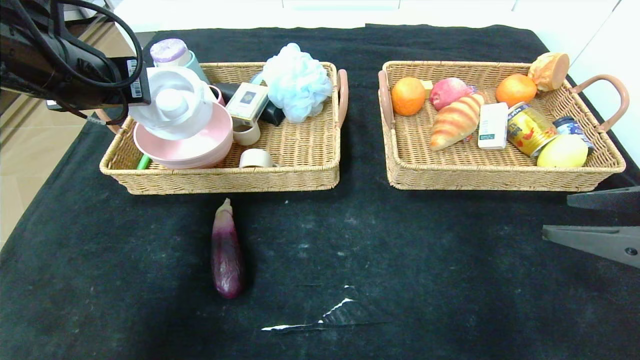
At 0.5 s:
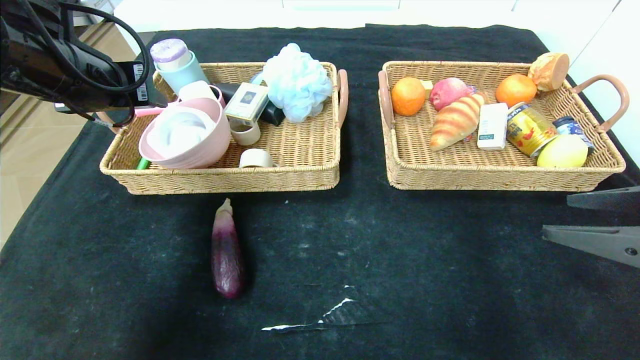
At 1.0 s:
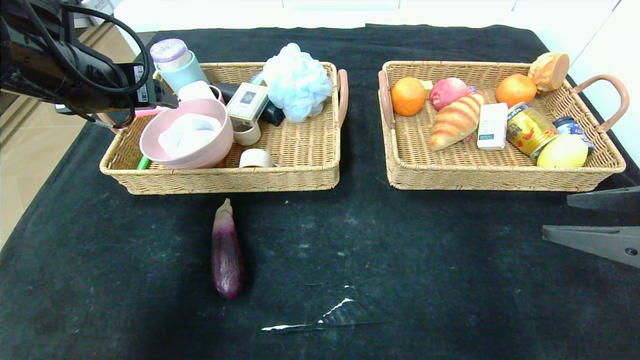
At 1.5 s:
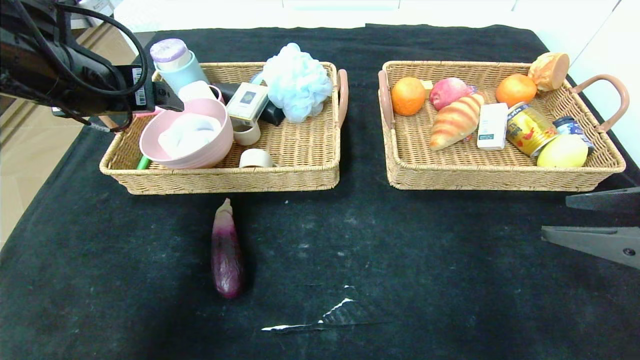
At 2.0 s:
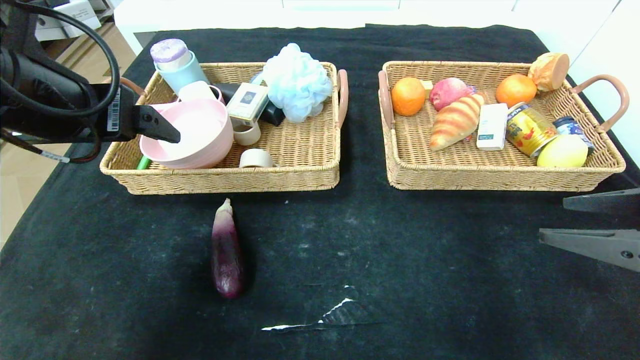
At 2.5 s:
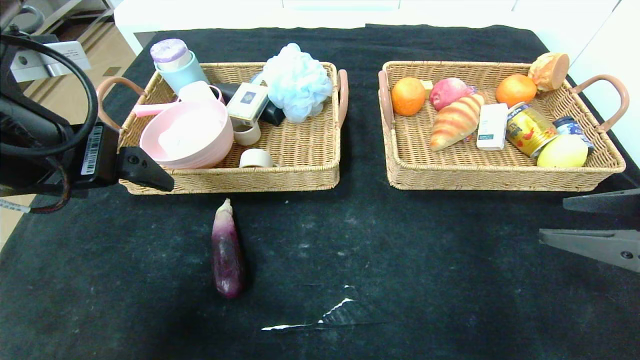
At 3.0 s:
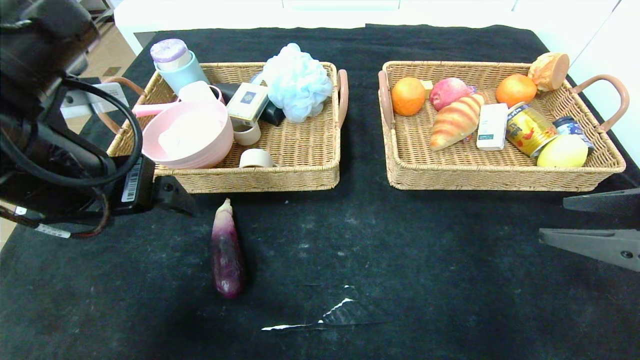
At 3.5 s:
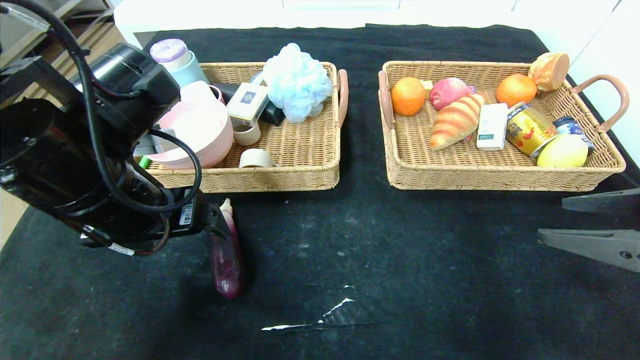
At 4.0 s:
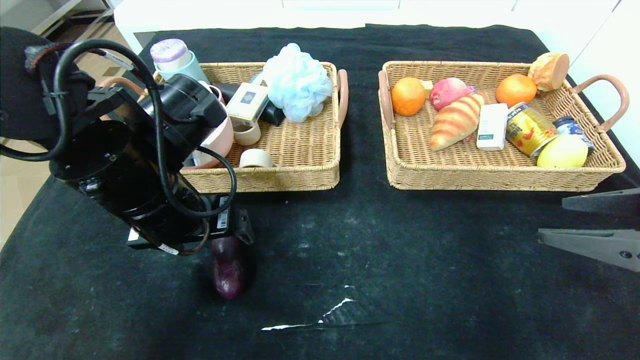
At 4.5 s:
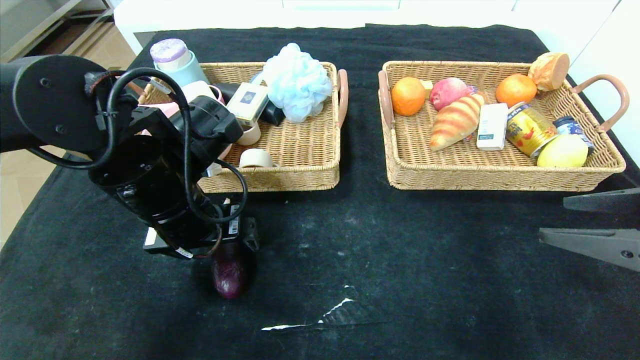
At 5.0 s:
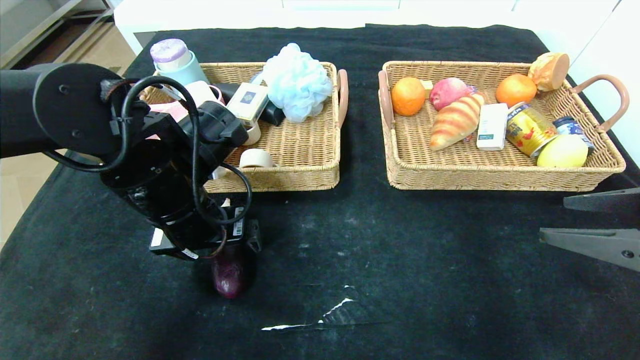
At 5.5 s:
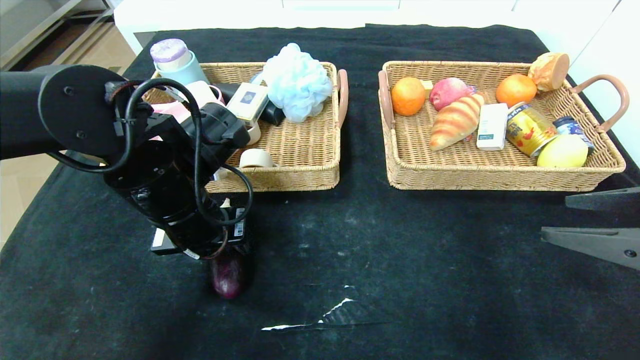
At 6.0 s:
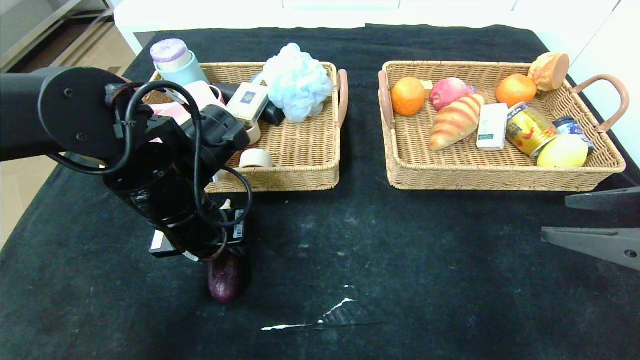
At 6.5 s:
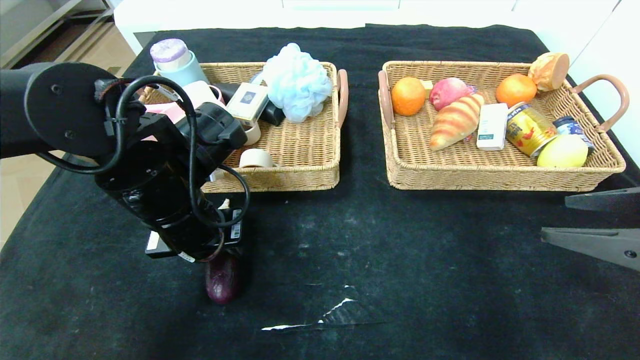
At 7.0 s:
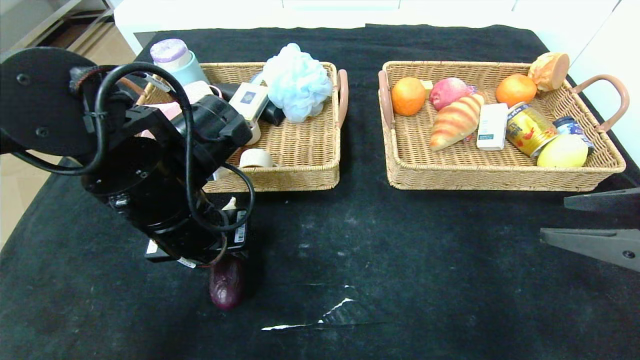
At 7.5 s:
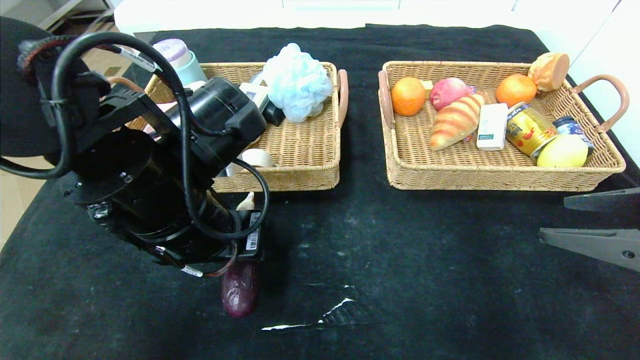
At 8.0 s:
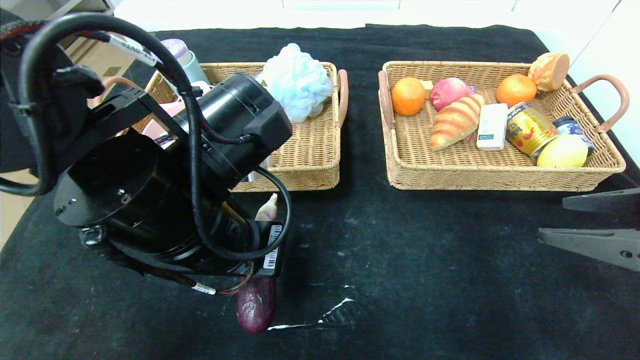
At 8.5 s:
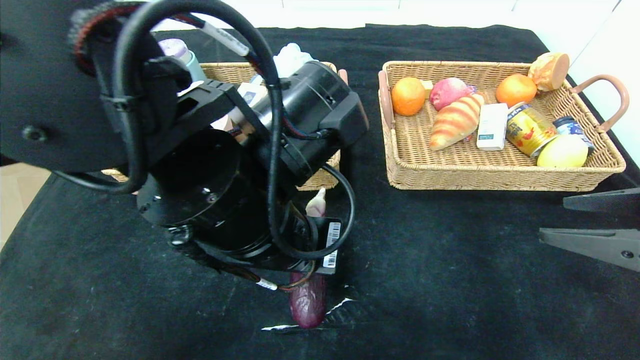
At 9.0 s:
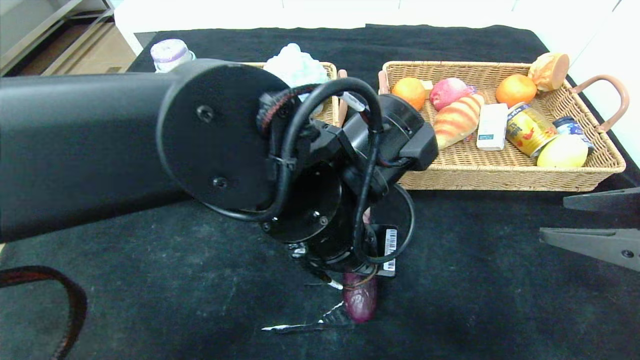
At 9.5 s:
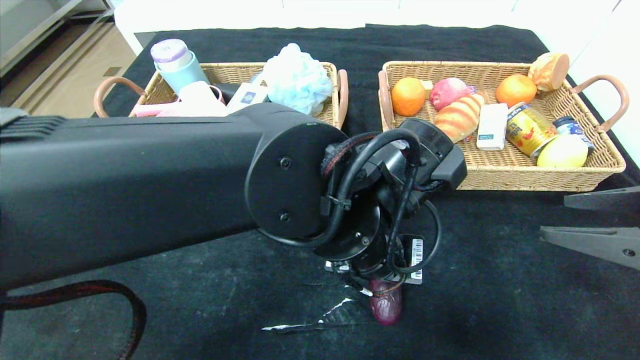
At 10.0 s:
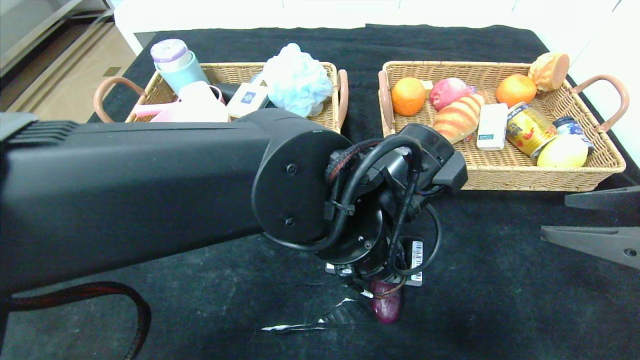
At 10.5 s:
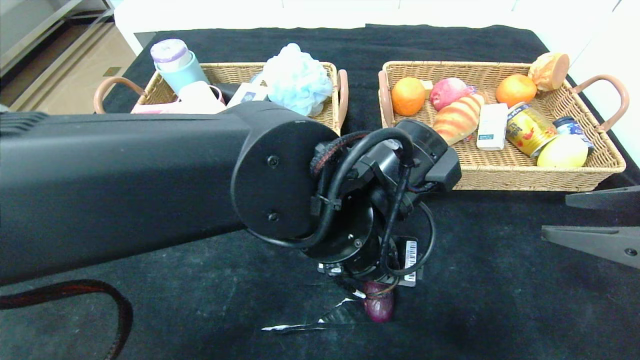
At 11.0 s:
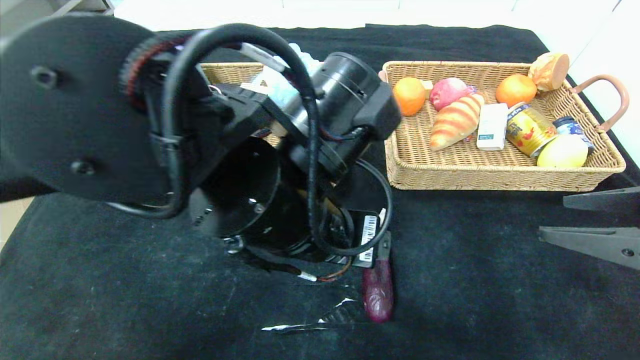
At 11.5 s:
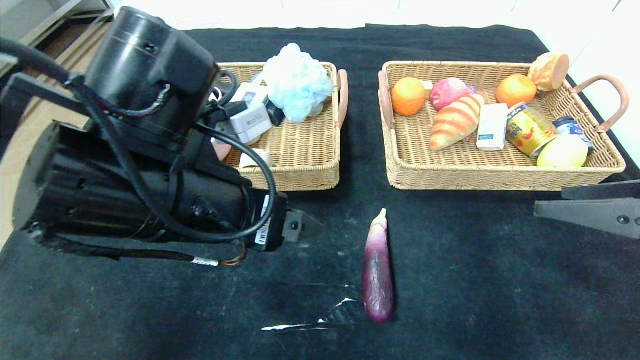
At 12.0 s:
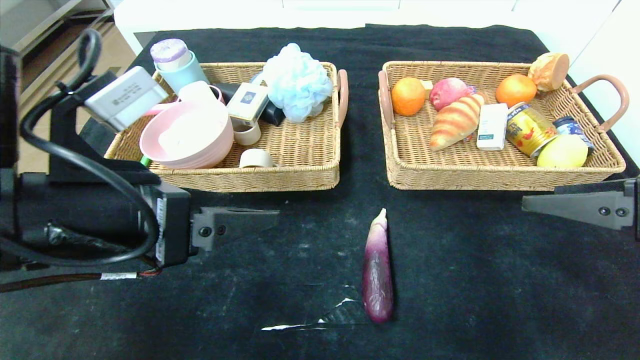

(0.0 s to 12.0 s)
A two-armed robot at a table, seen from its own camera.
Step, 0.0 s - 3.0 s: Pick up the tape and put it in the left basket.
Step, 3.5 s - 11.0 s: Place the eggplant in the center of the table.
0.0 s - 2.0 s: The left gripper goes some 5 cm backward, and opens up.
2.0 s - 4.0 s: The left gripper goes some 10 cm downward and to the right.
4.0 s - 6.0 s: The left gripper closes its fingers.
6.0 s - 8.0 s: The left gripper travels backward and to the right by approximately 10 cm.
8.0 s - 10.0 s: The left gripper shifts approximately 15 cm to the right.
10.0 s - 12.0 s: The left gripper is displaced to the left by some 20 cm.

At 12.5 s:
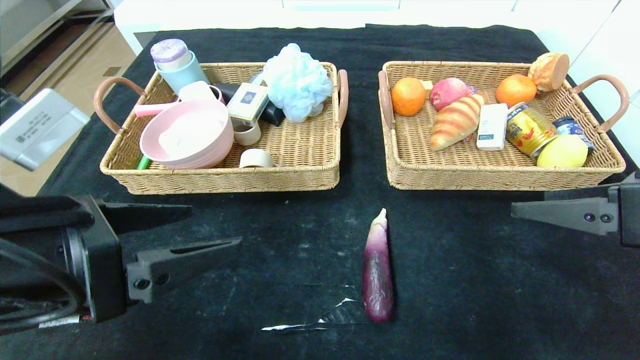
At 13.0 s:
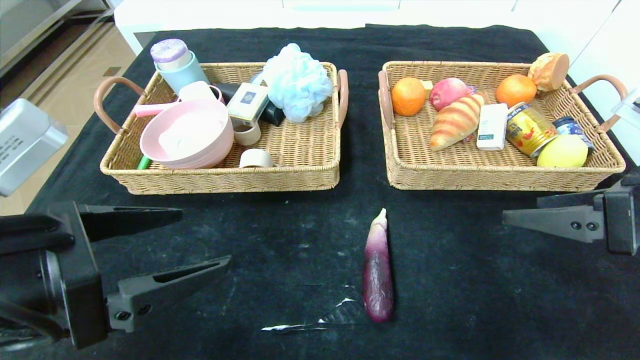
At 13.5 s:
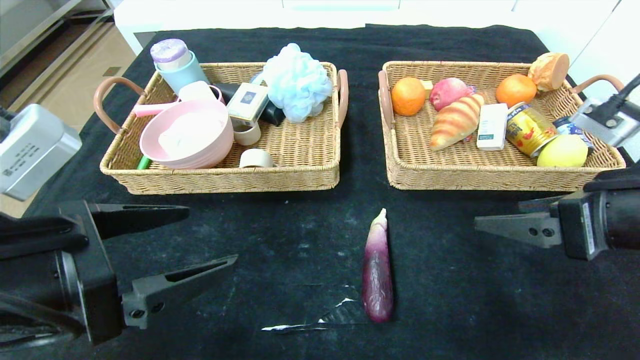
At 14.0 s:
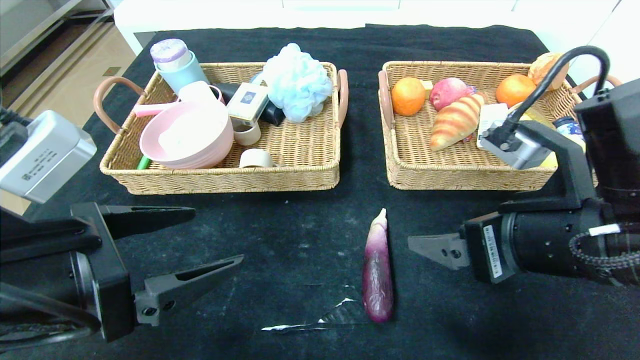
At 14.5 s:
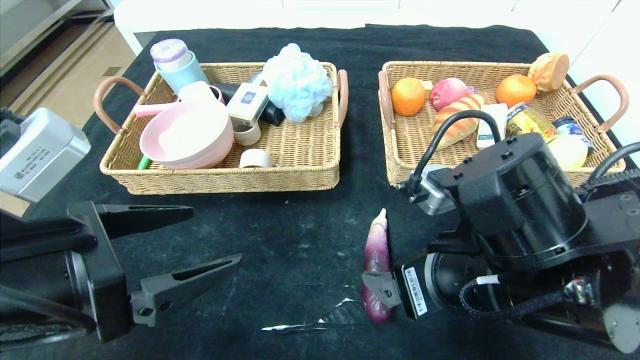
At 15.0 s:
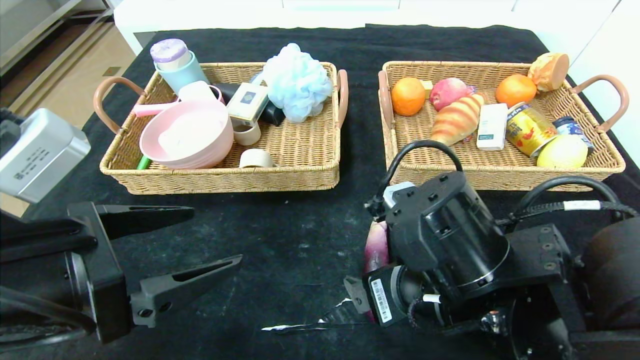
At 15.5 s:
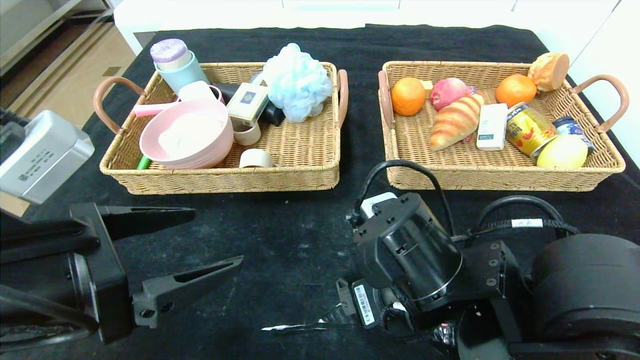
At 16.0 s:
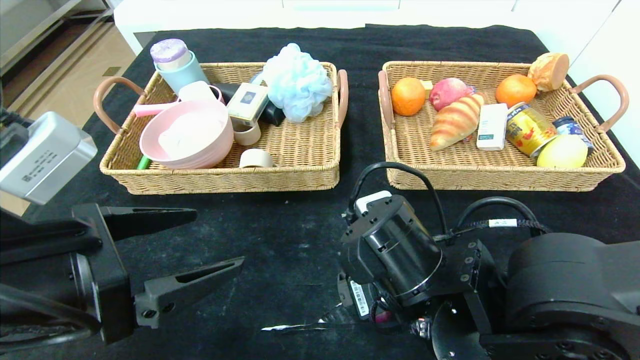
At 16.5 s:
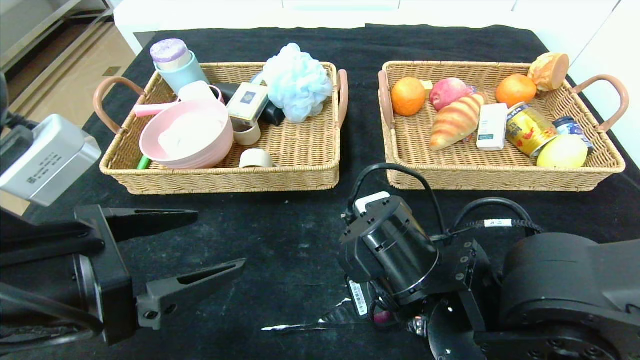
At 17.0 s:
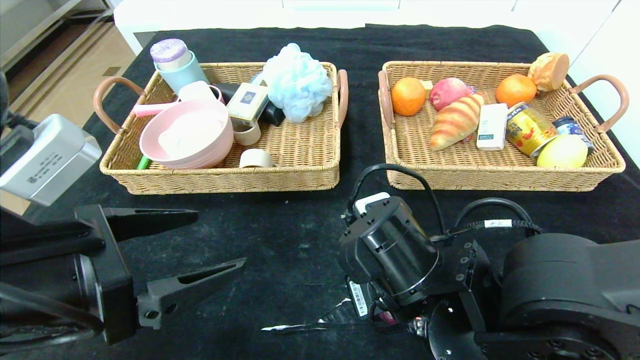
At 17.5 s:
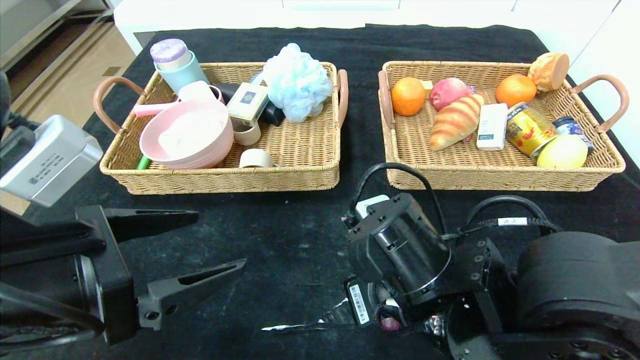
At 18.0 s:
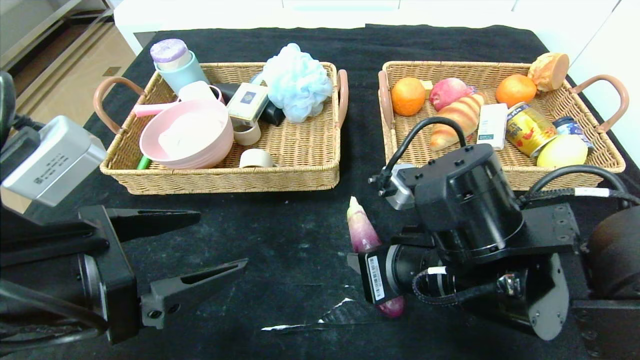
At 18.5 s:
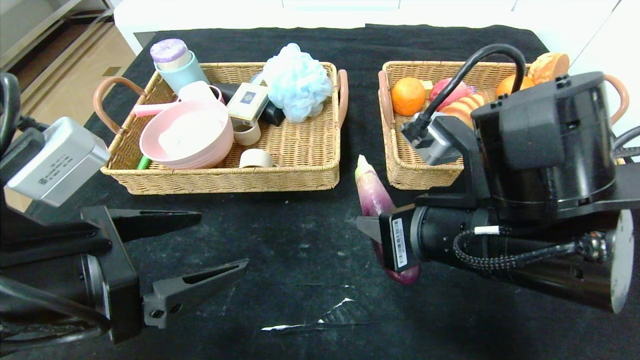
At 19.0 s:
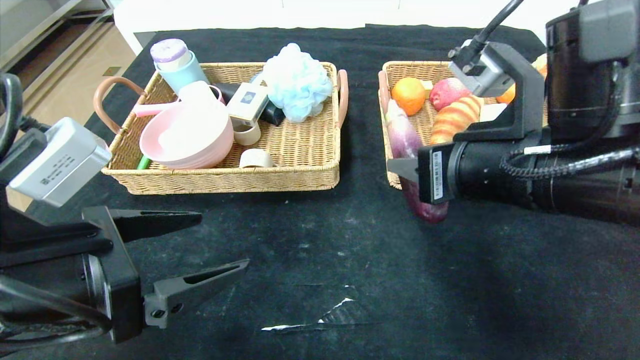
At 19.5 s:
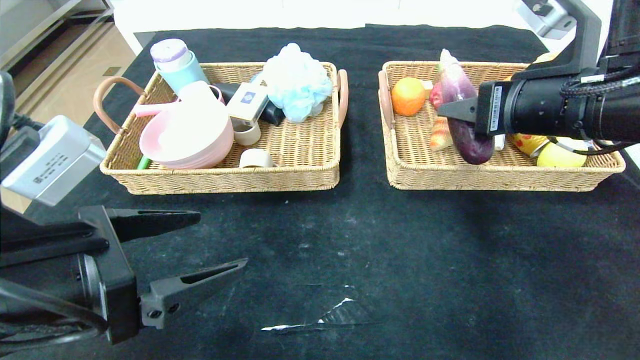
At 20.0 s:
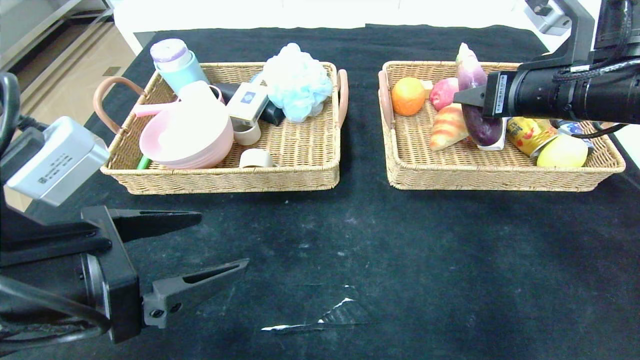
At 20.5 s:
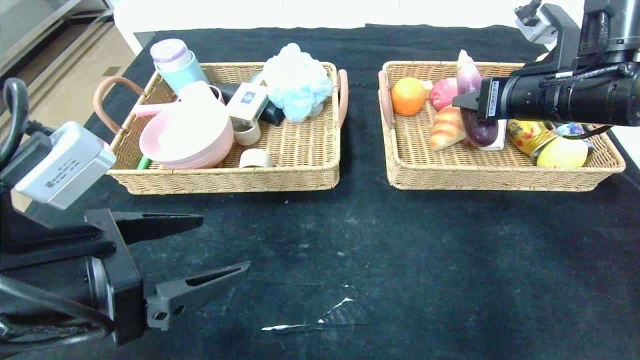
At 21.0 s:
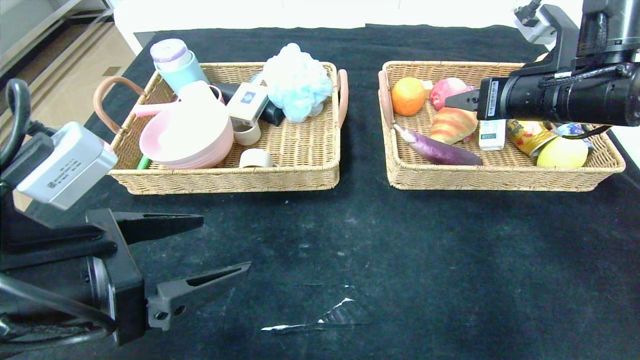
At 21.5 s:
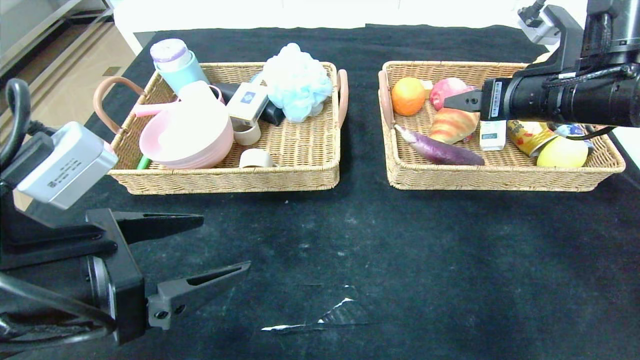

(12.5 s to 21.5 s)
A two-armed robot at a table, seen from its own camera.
12.5 s - 14.5 s: The right gripper shifts some 20 cm to the left.
14.5 s - 17.0 s: The right gripper travels to the left by approximately 5 cm, and closes up.
17.0 s - 19.5 s: The right gripper heads upward, to the right and forward, covering some 25 cm.
19.5 s - 21.5 s: The right gripper shifts approximately 5 cm forward, and opens up.
